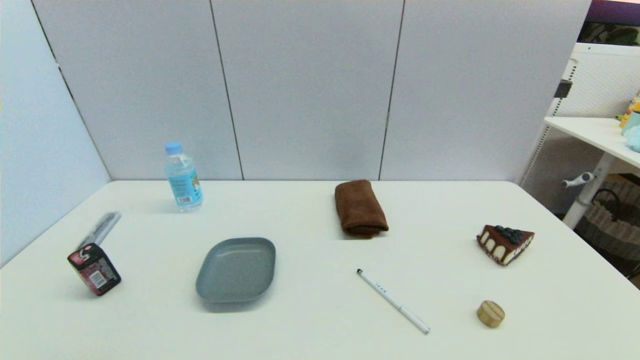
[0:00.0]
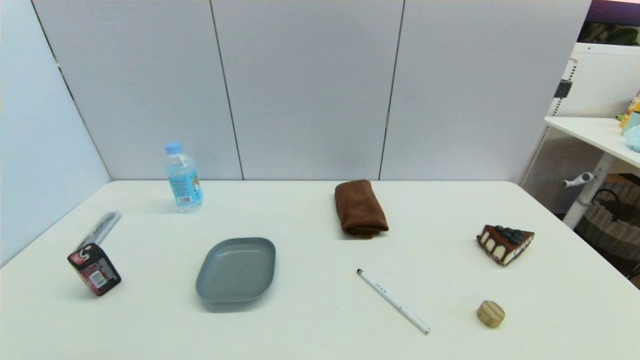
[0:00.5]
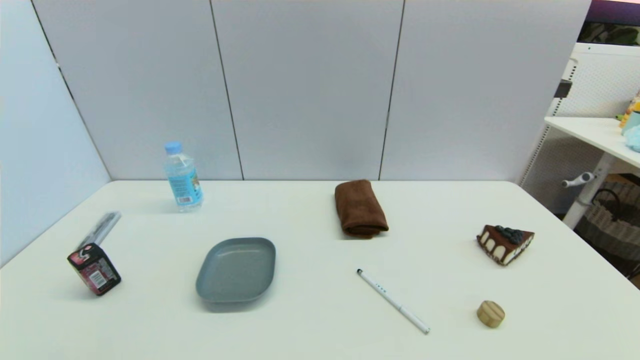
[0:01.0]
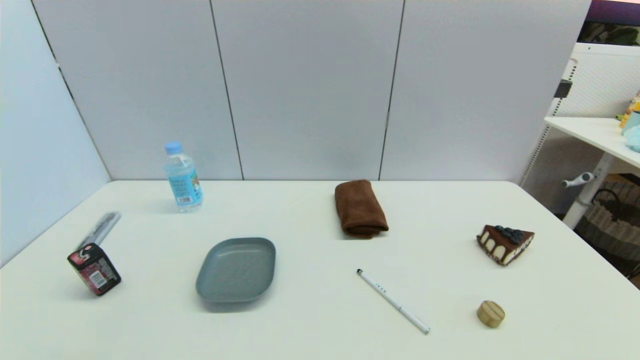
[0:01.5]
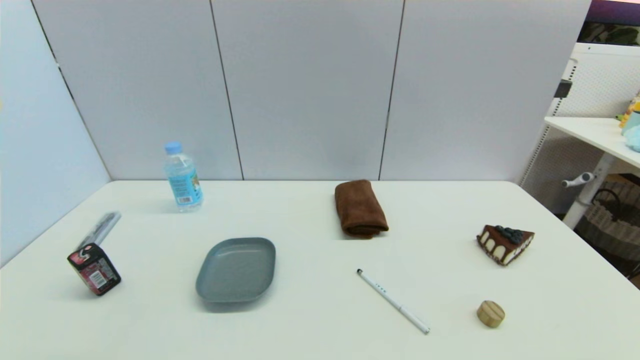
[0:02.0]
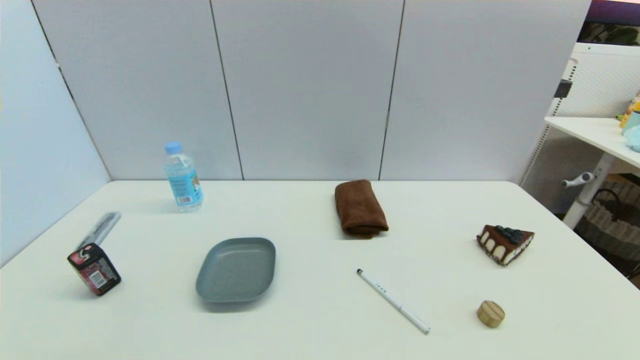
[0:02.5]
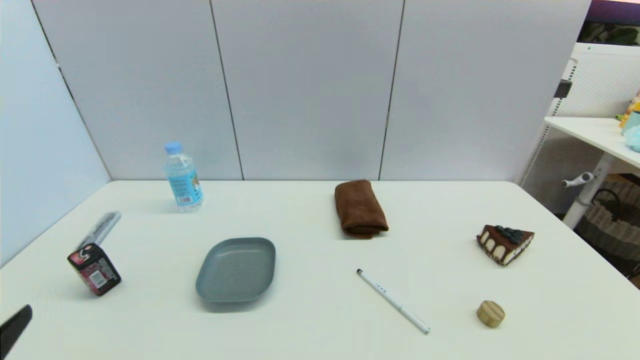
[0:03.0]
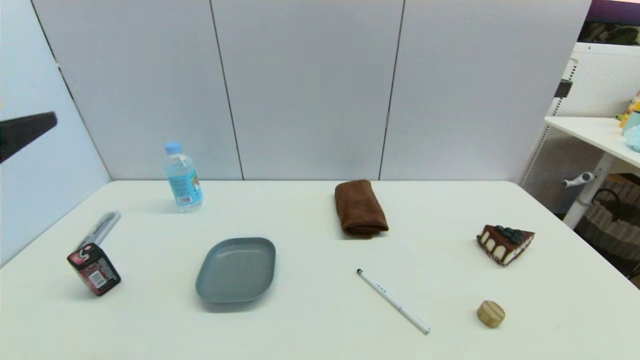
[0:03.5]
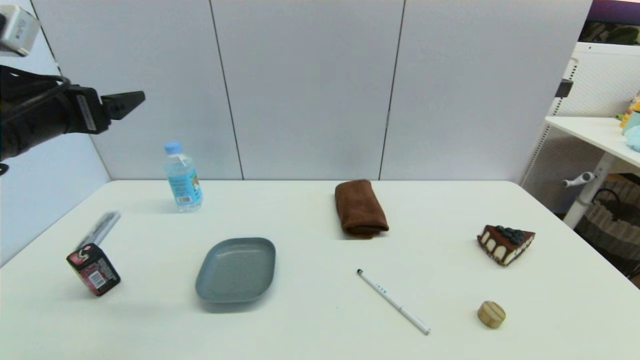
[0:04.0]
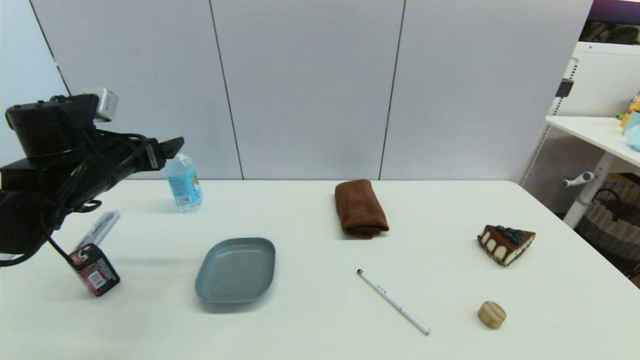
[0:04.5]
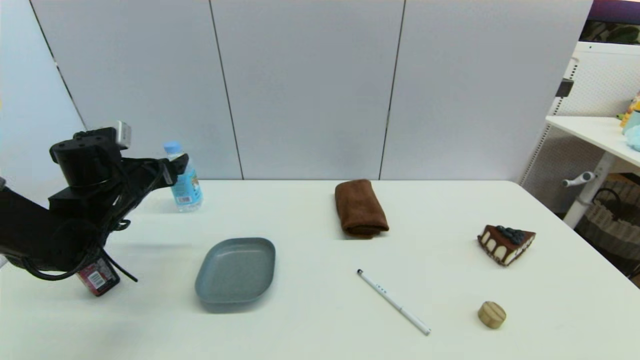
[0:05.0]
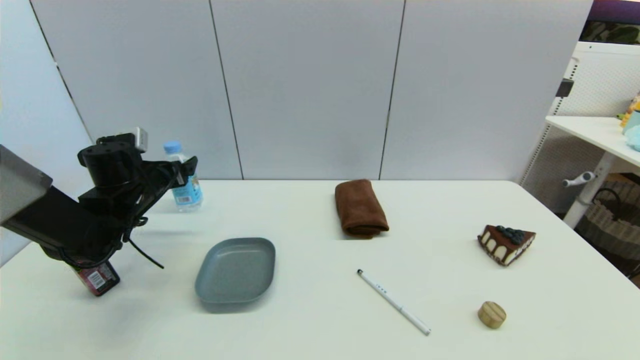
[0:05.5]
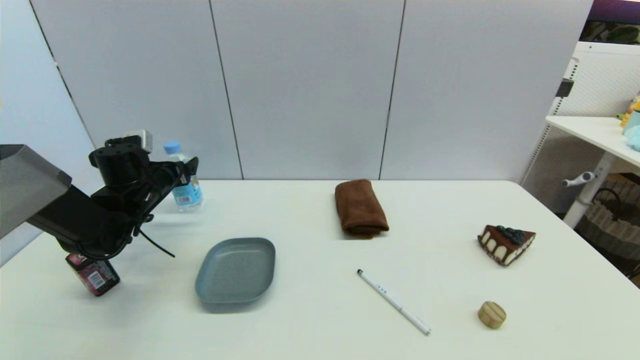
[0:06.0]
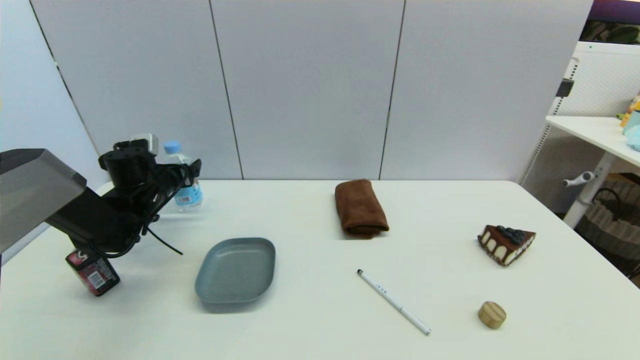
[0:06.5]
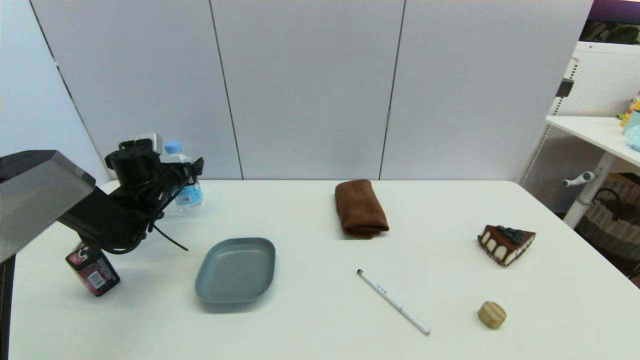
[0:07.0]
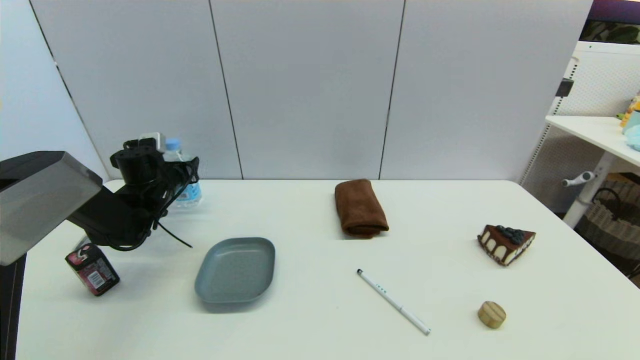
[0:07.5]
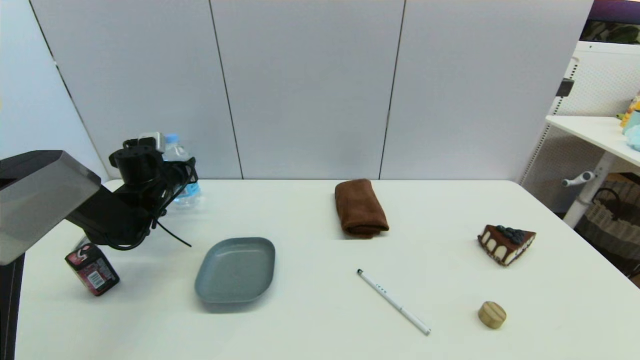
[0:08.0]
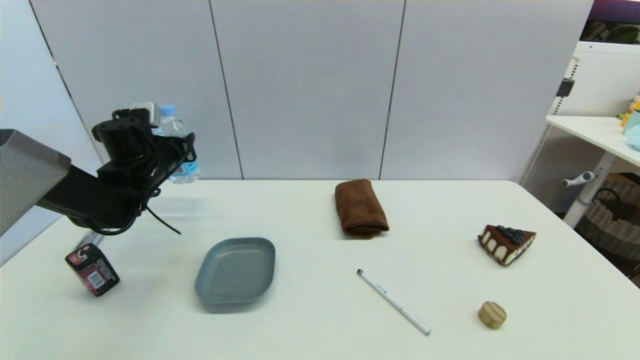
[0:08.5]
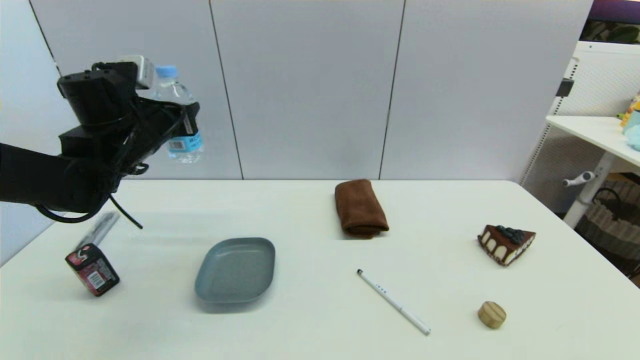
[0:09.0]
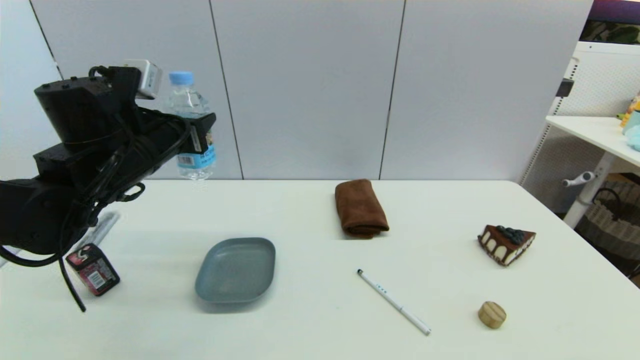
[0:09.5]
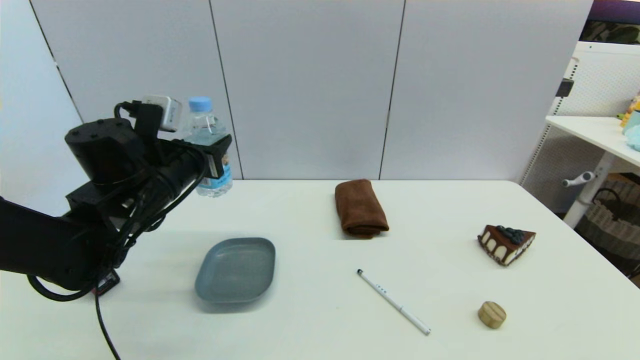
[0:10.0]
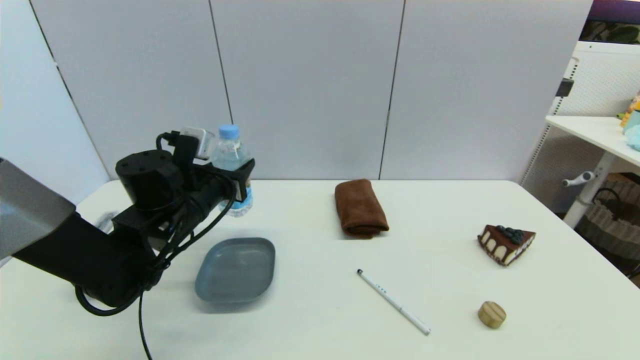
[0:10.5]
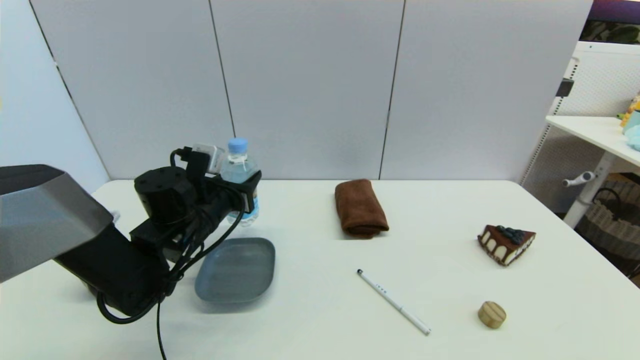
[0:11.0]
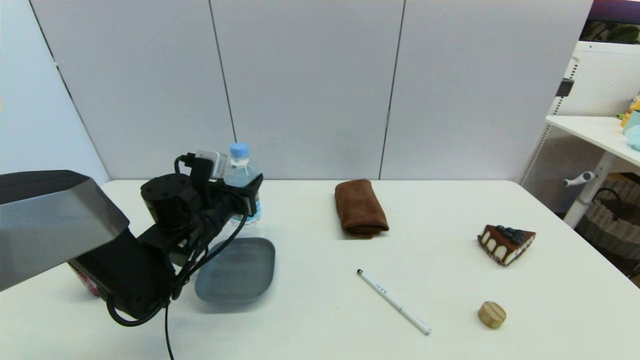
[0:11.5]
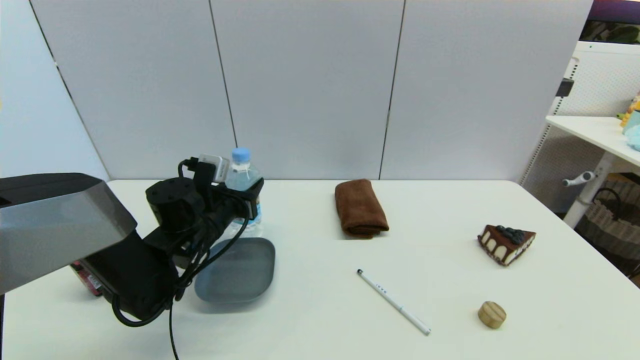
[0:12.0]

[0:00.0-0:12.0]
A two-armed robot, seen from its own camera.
Step, 0:03.0 to 0:07.5: Grasp the soda water with left gripper.
0:02.0 to 0:04.0: The left gripper goes some 35 cm forward and upward.
0:04.0 to 0:06.0: The left gripper moves downward and forward, approximately 25 cm.
0:06.0 to 0:08.0: The left gripper closes up.
0:08.0 to 0:10.0: The left gripper heads backward, to the right and upward, covering approximately 20 cm.
0:10.0 to 0:12.0: The left gripper shifts about 10 cm downward.

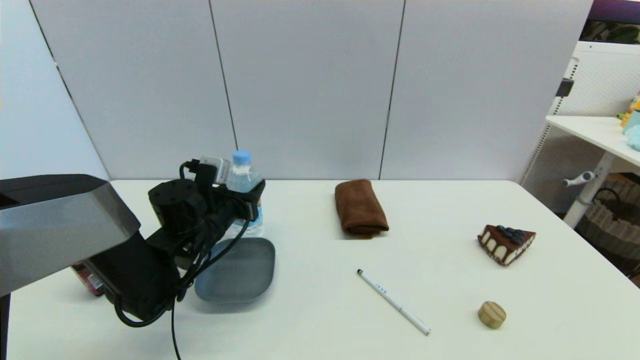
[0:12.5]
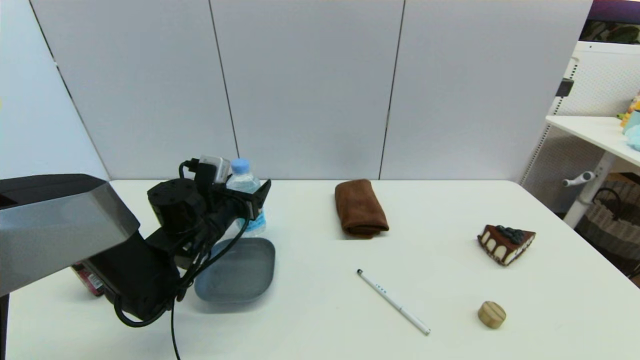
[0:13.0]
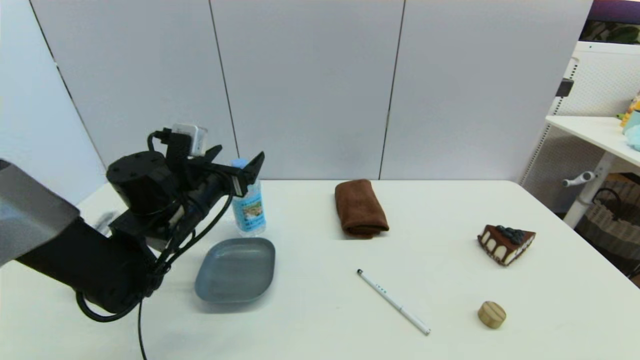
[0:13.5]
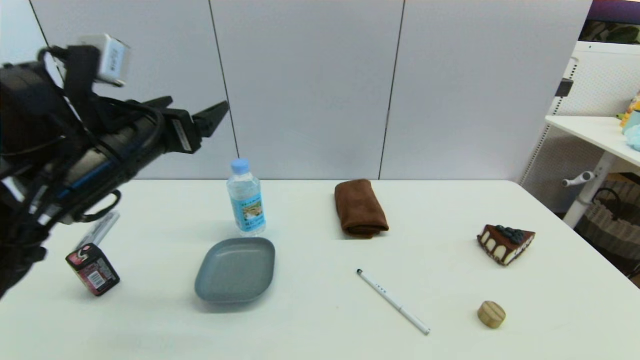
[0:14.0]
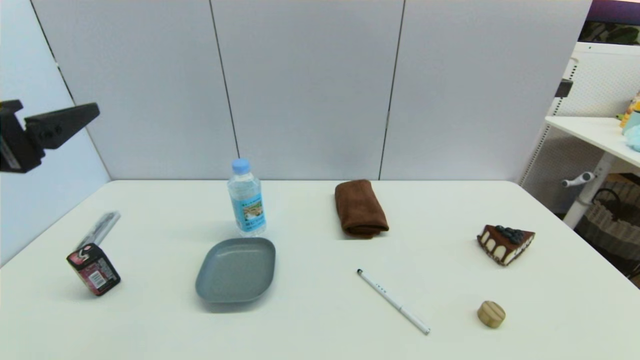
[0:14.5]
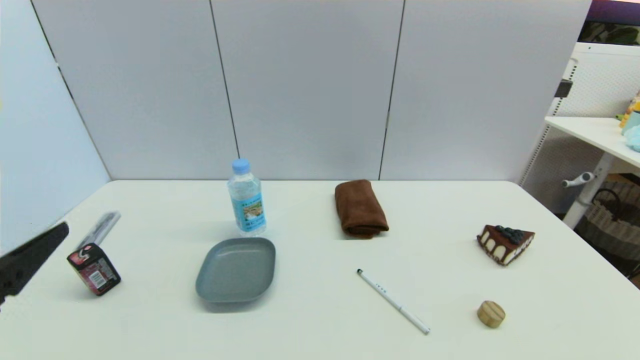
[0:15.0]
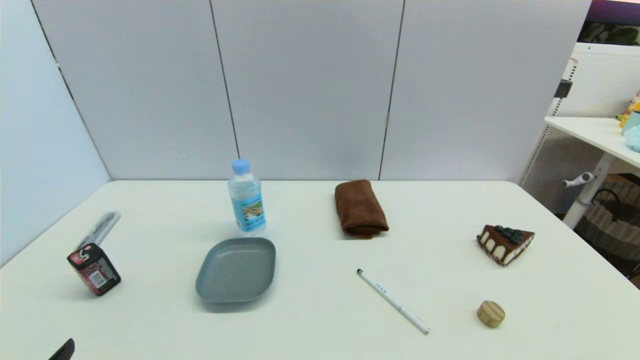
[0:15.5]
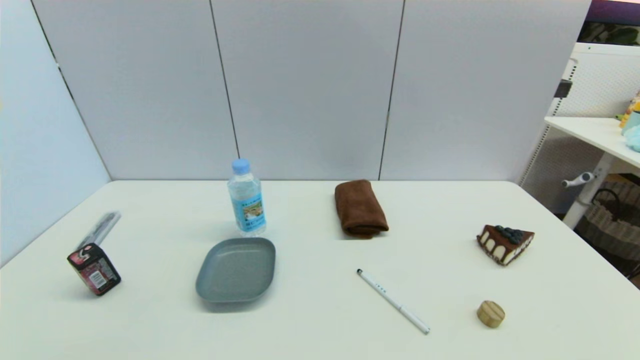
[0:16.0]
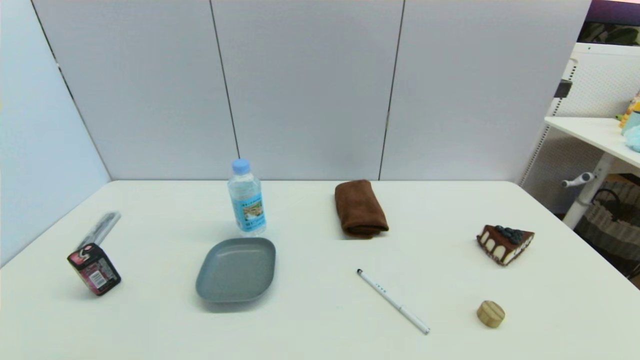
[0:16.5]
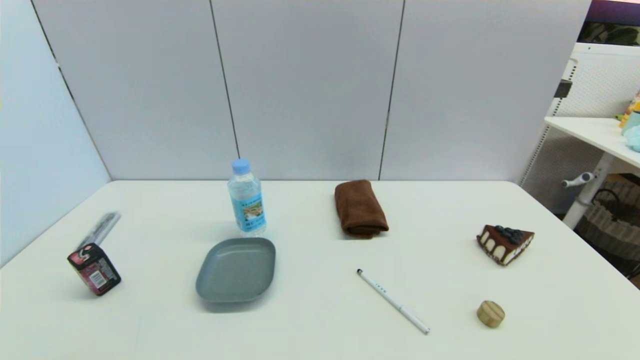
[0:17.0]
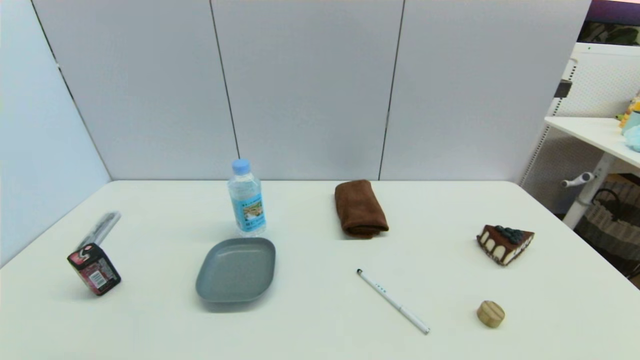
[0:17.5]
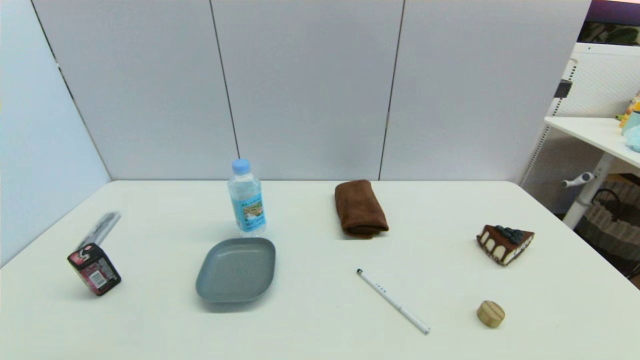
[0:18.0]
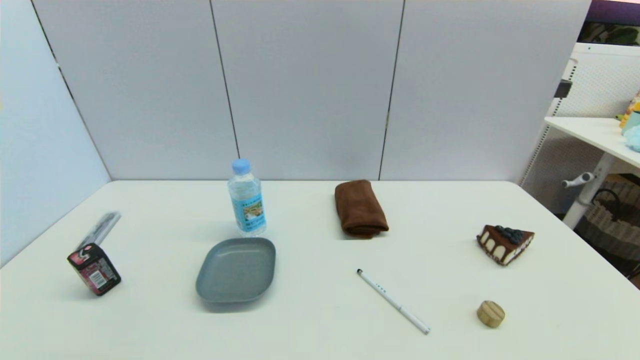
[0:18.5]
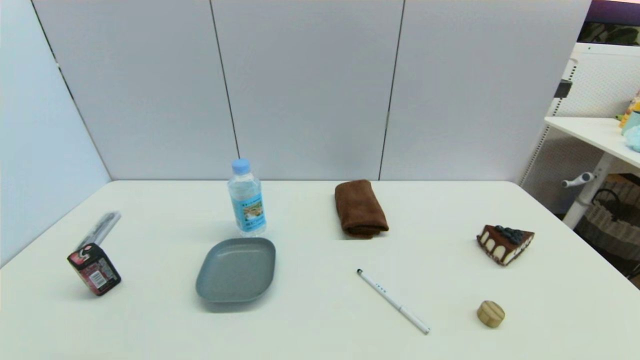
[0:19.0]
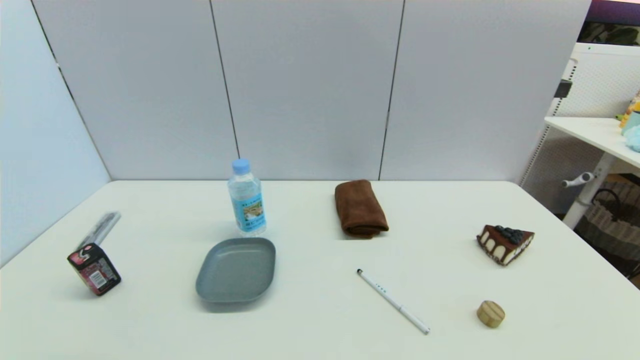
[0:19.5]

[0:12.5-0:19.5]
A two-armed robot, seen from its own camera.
0:12.5 to 0:14.5: The left gripper shifts roughly 30 cm upward, backward and to the left, and opens.
0:14.5 to 0:16.0: The left gripper is displaced downward and backward by roughly 25 cm.
0:17.5 to 0:19.5: Neither gripper changes place.

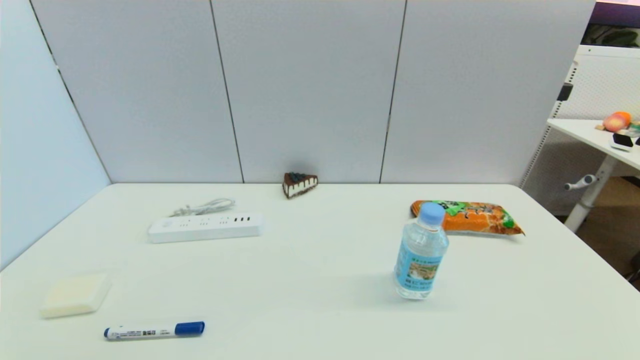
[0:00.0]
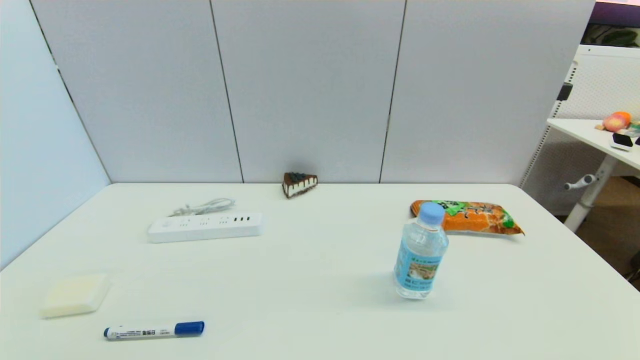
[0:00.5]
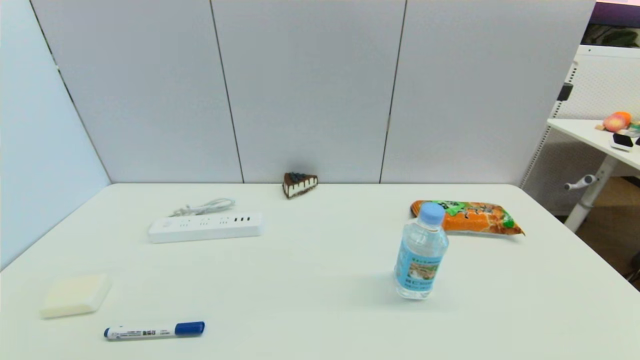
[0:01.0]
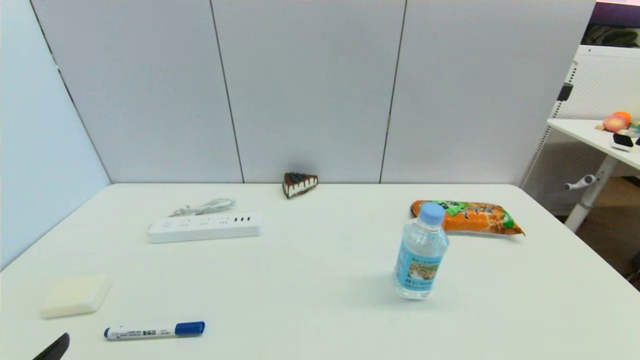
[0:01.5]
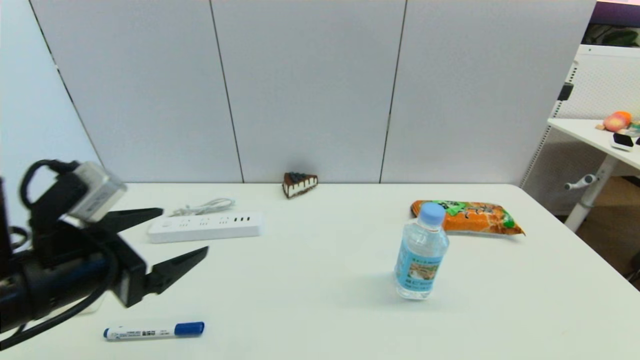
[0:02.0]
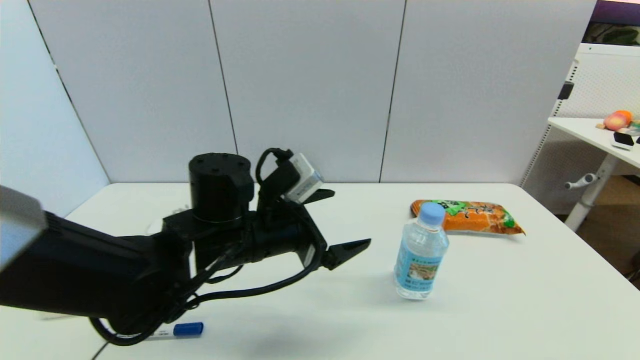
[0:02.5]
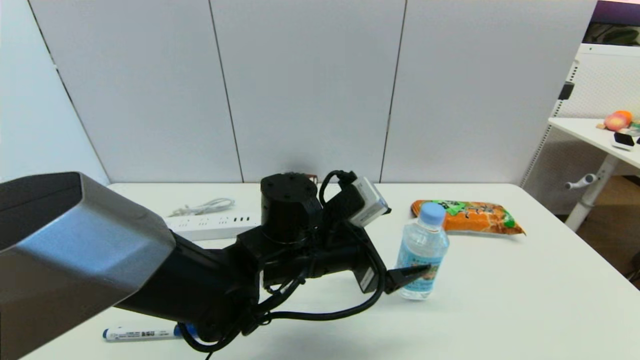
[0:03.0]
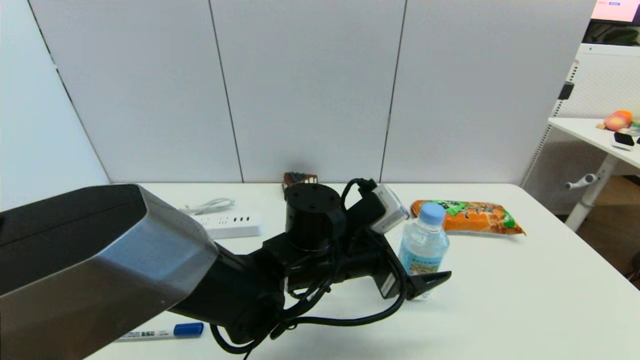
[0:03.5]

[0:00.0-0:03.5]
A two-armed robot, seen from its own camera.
0:00.0 to 0:02.0: The left gripper shifts roughly 20 cm forward and upward.
0:02.0 to 0:03.5: The left gripper is displaced to the right by about 25 cm.
